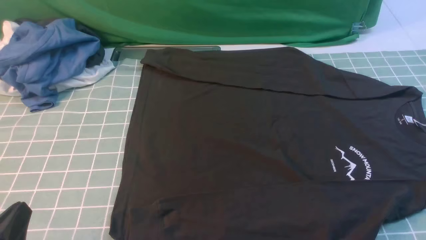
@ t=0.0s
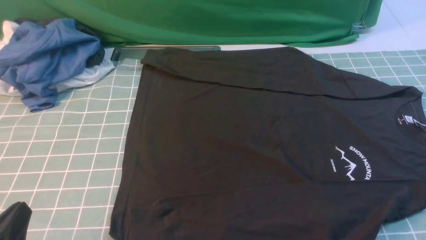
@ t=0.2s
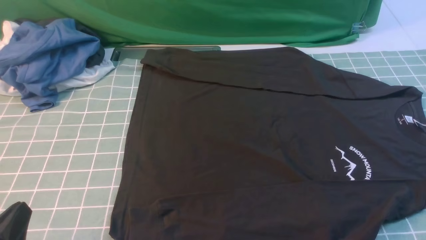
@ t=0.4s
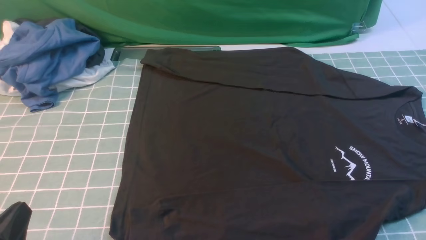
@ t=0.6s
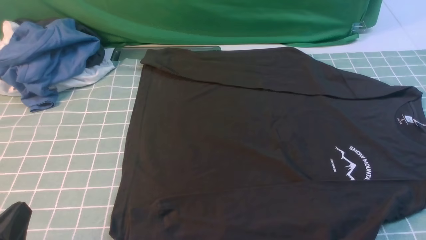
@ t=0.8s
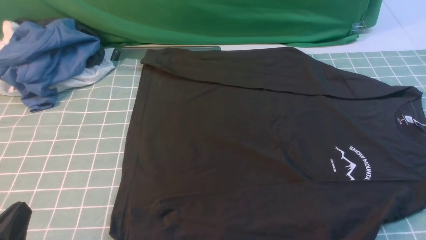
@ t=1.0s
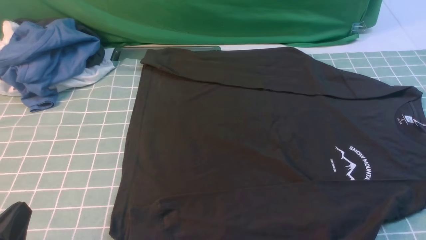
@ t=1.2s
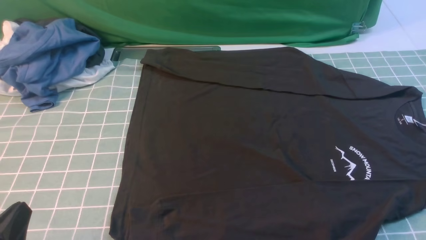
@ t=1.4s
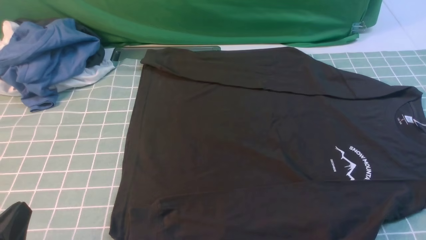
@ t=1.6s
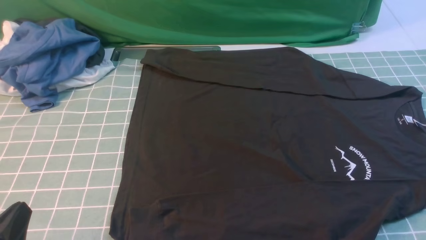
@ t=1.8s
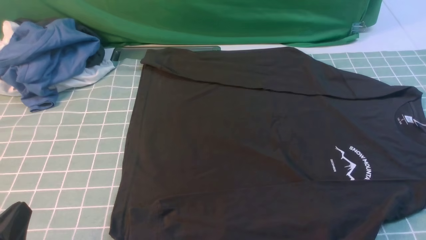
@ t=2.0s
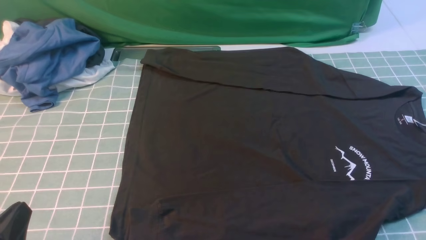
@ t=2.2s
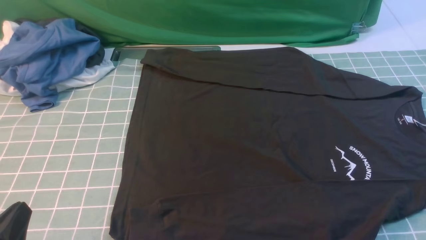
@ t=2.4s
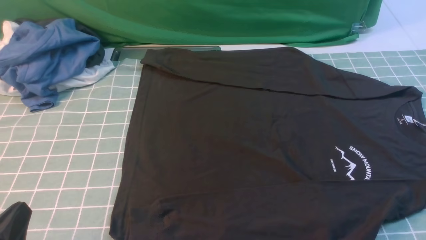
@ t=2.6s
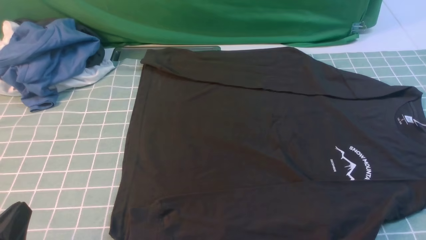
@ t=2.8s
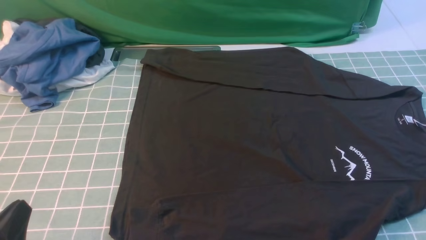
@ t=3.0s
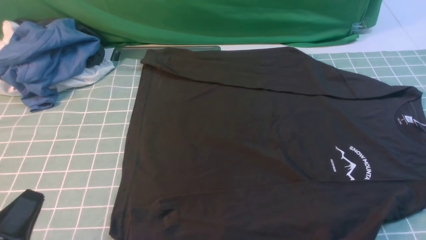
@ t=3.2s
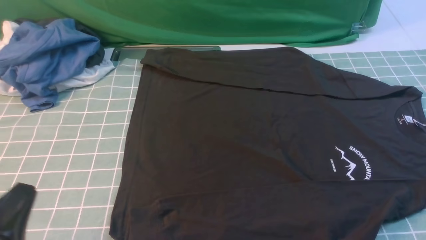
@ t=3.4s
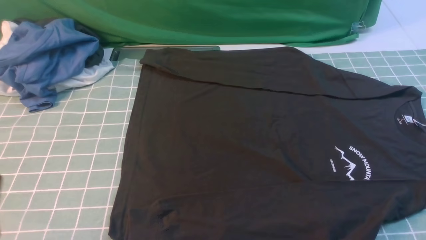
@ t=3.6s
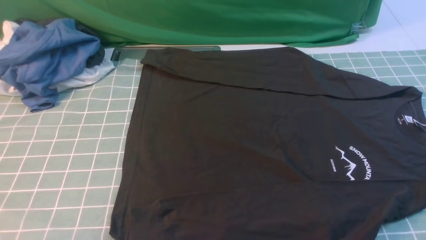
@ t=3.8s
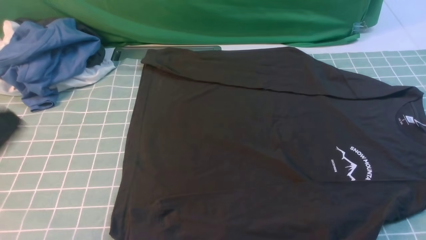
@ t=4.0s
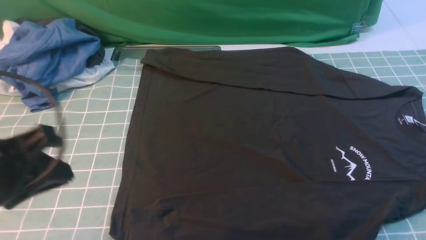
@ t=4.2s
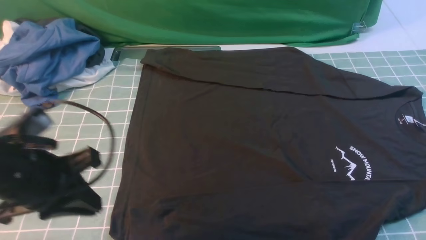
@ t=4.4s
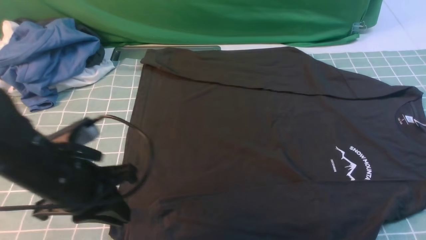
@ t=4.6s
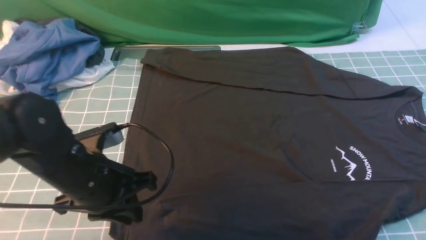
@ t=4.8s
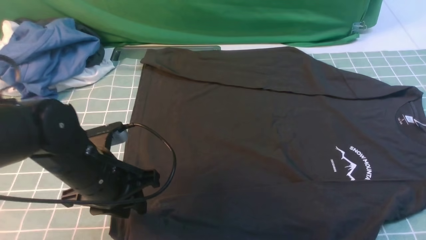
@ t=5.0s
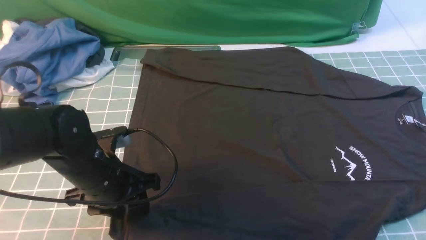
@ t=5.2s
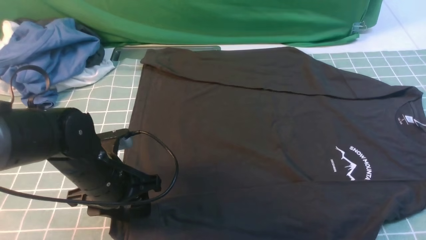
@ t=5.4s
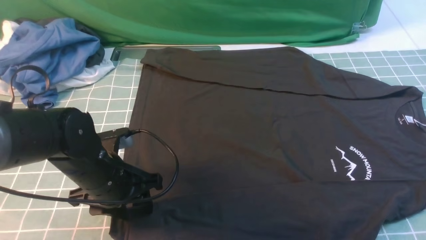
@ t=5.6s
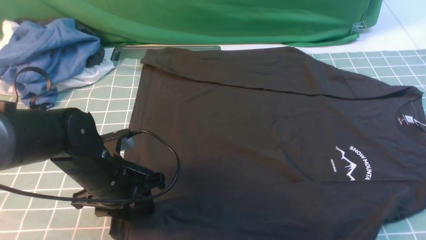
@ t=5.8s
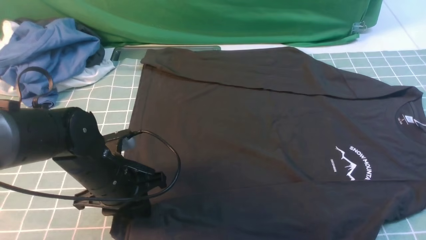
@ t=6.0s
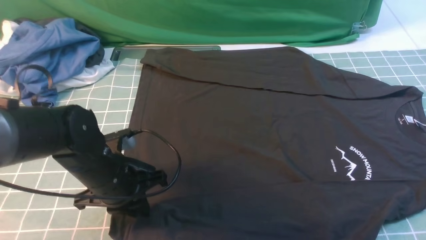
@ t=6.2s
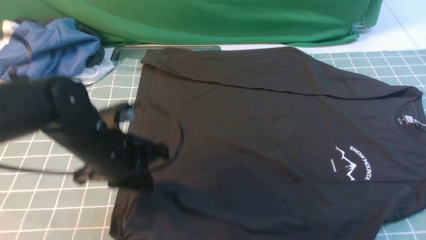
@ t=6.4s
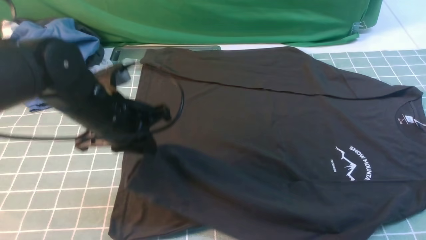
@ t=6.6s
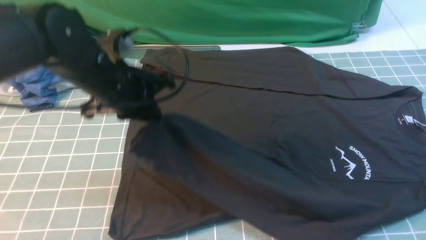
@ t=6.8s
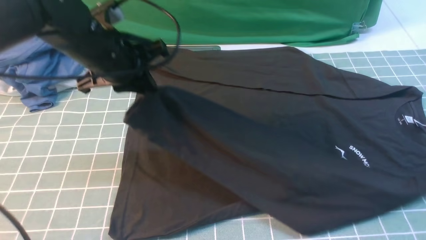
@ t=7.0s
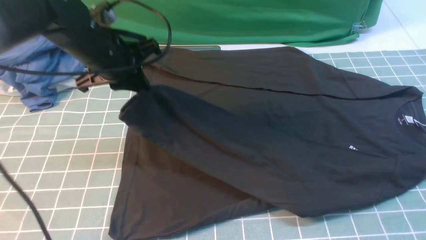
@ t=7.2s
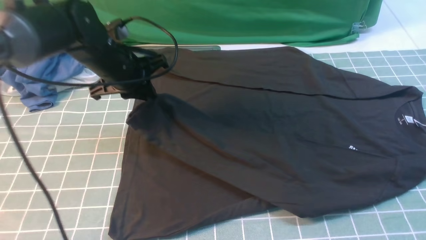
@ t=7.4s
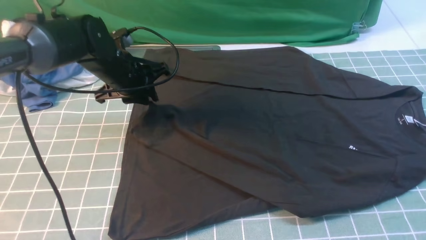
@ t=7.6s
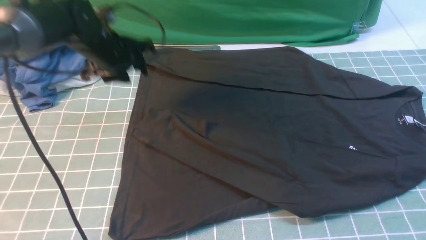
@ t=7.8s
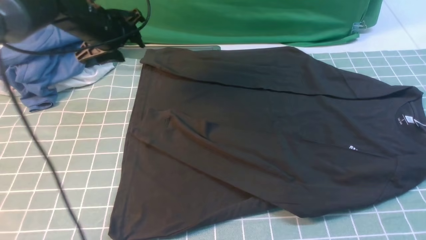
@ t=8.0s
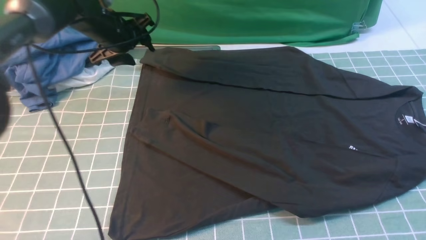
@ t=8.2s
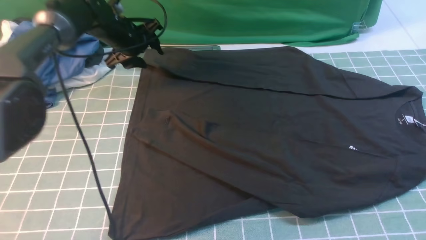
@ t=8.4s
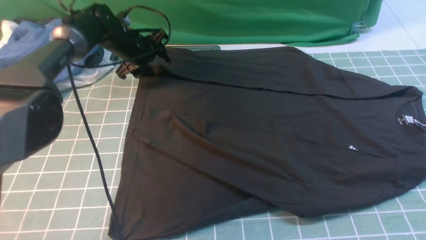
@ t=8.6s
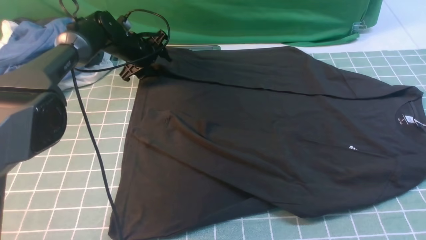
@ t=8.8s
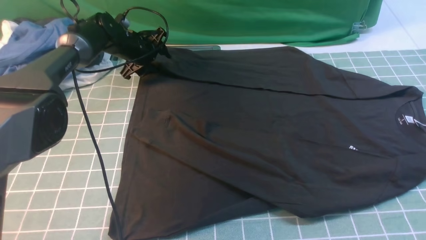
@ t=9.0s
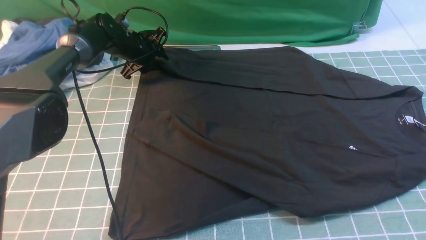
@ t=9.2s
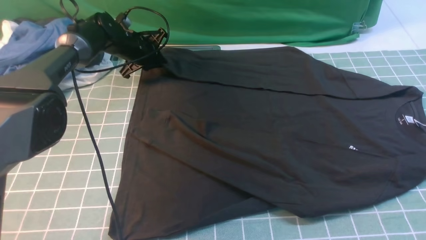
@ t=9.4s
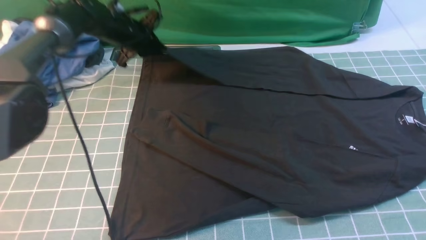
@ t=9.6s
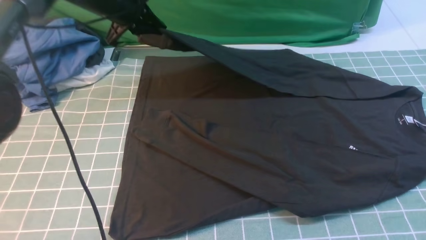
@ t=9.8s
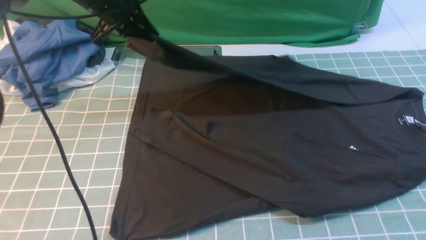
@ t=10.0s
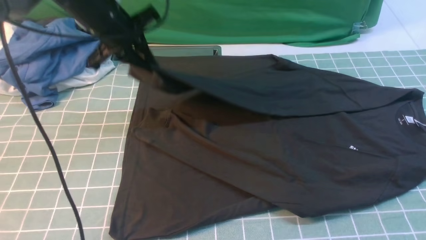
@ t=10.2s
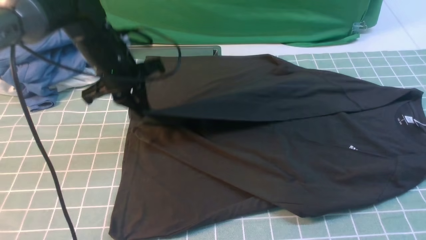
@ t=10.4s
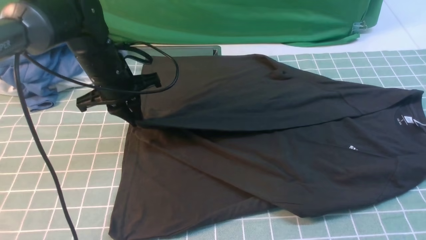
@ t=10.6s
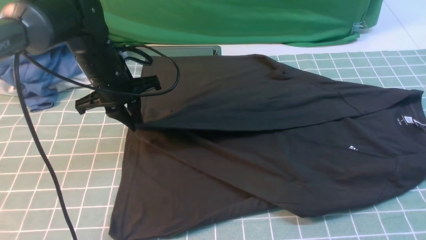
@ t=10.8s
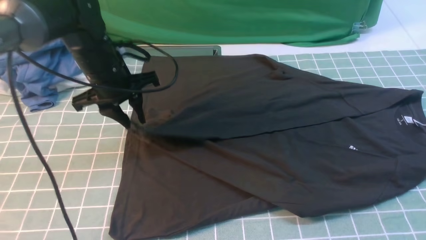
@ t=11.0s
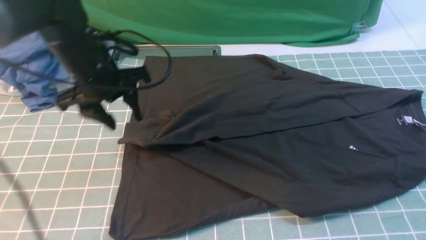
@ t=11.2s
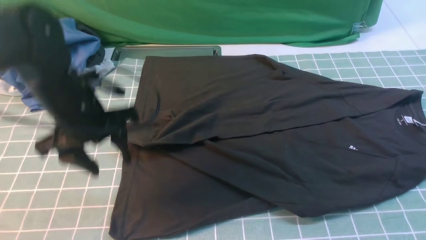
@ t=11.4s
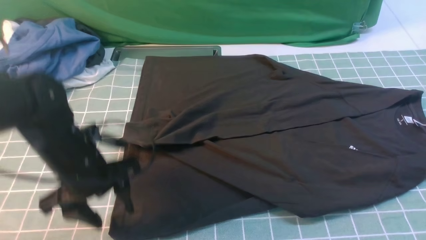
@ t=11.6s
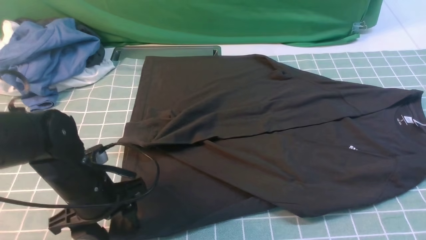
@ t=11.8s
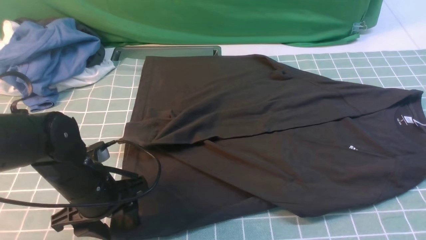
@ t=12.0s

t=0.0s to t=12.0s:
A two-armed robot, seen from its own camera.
Step, t=0.0s to t=6.2s: use the left arm to clamp the cuff closest to it.
Step, t=6.4s to t=7.6s: use the left arm to drag and place the cuff at the centered position on the left edge of the fabric.
Step, t=8.0s to t=9.4s: use the left arm to clamp the cuff farthest from it.
Step, t=9.8s to t=11.2s: use the left arm to drag and drop the cuff onto the cuff closest to the left arm.
t=0.0s to t=1.6s: Both grippers stay put.
t=3.0s to t=4.4s: The left gripper heads forward and upward, covering roughly 15 cm.
t=4.4s to t=6.0s: The left gripper is displaced downward, forward and to the right by some 15 cm, and opens and closes again.
t=6.0s to t=7.6s: The left gripper goes some 15 cm forward.
t=7.6s to t=9.0s: The left gripper is displaced forward and downward by approximately 15 cm, and opens.
t=9.0s to t=10.4s: The left gripper heads backward and upward, covering roughly 15 cm, and closes up.
t=10.4s to t=12.0s: The left gripper goes some 20 cm backward and downward, and opens up.

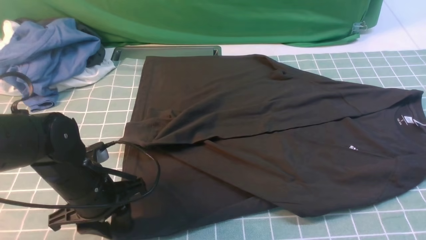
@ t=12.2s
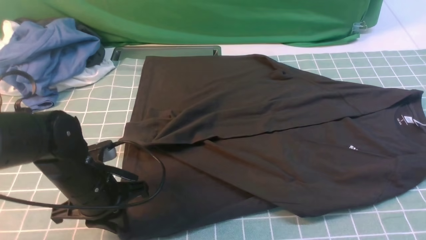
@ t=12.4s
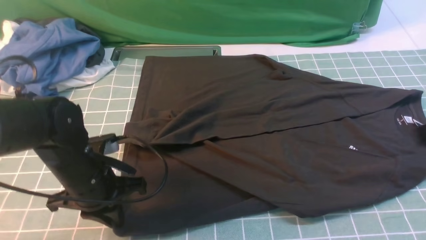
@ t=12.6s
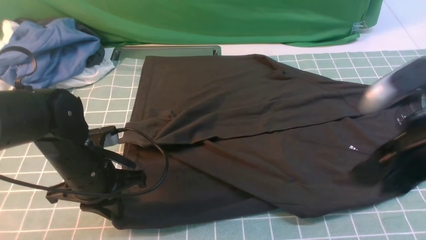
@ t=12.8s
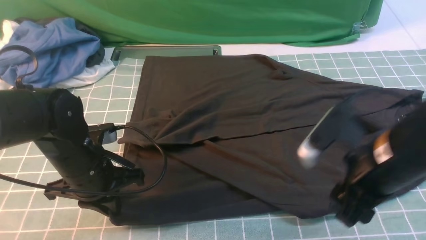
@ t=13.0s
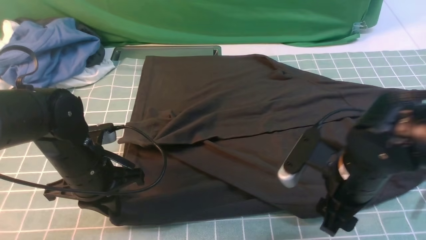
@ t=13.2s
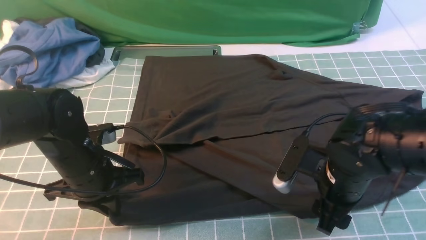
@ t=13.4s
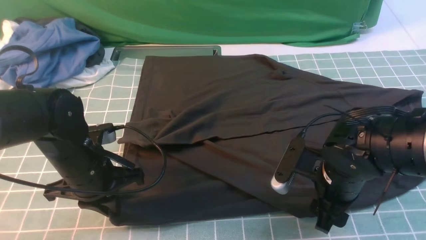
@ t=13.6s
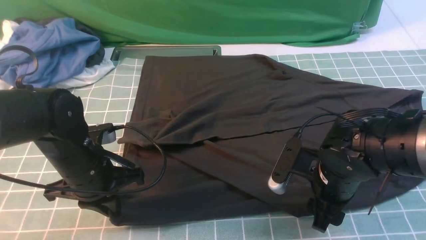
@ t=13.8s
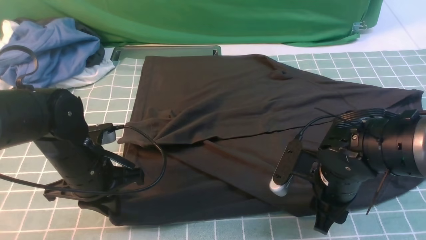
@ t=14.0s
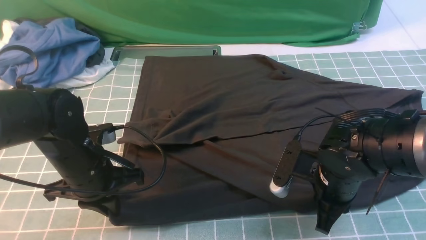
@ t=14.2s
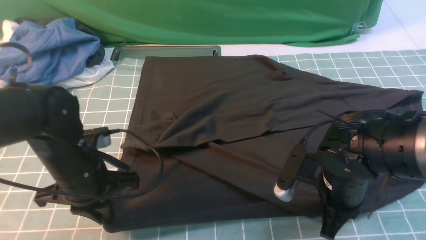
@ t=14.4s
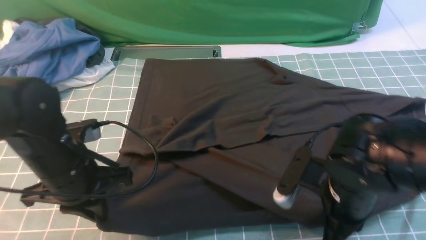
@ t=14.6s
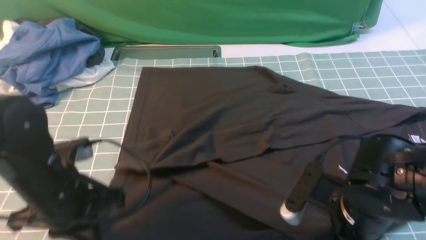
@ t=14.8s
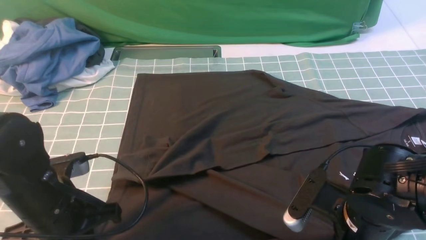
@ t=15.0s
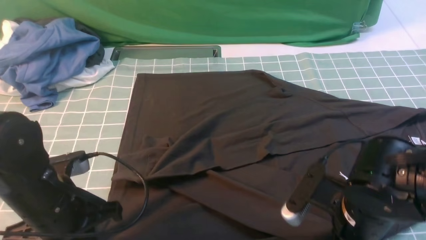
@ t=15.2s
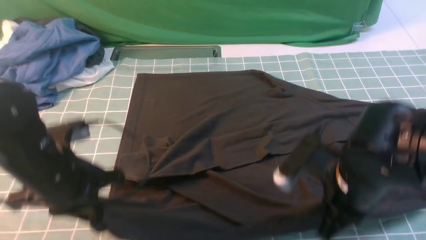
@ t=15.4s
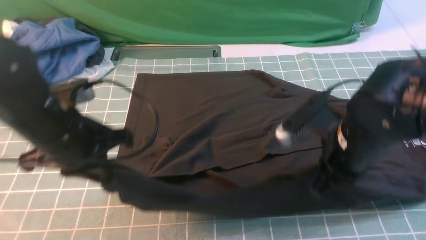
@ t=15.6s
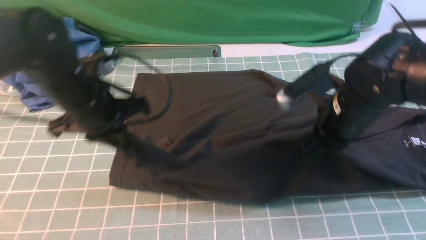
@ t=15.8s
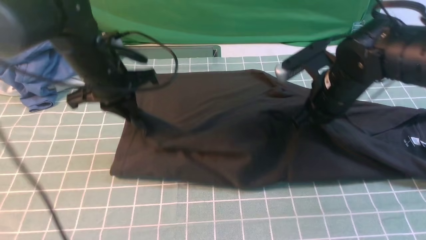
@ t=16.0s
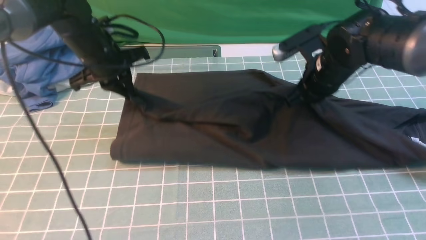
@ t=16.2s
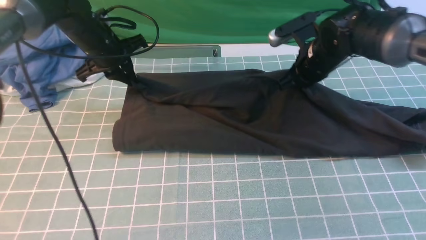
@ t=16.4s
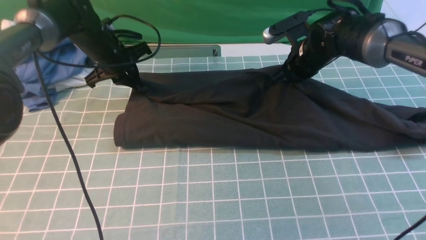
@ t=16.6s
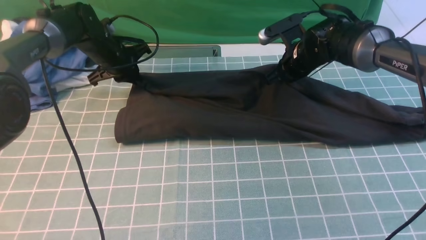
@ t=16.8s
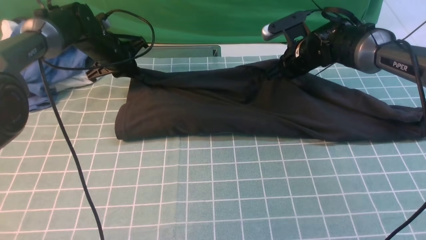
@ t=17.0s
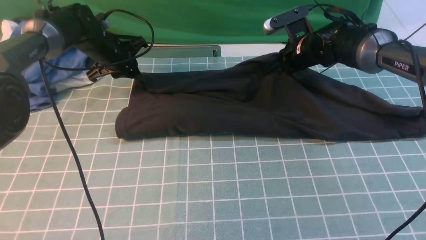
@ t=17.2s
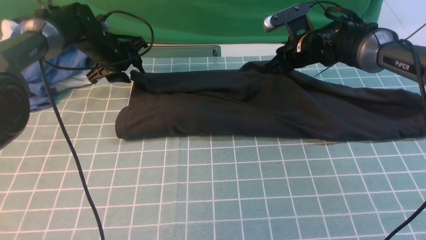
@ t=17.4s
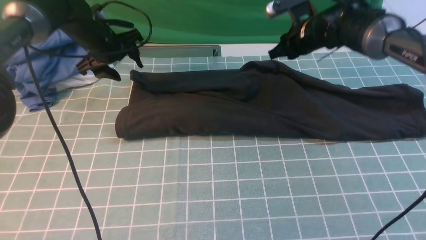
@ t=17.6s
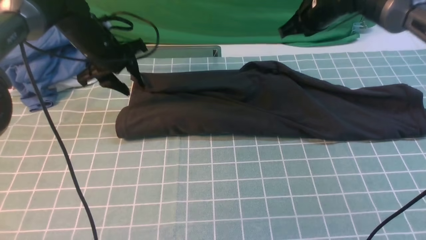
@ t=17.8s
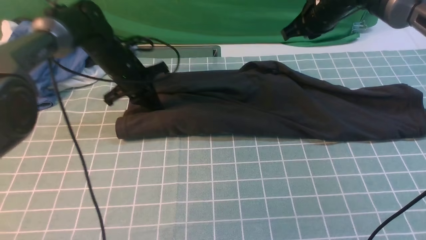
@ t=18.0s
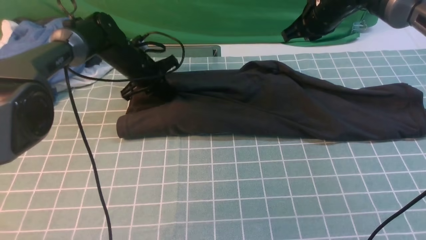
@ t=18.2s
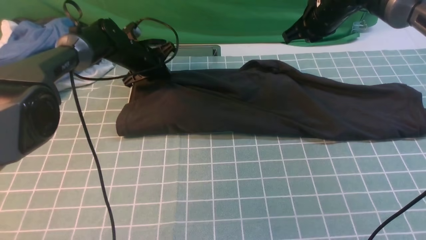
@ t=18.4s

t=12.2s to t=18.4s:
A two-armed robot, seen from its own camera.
Step, t=12.2s to t=15.2s: use both arms simultaneously to clamp the lower edge of the clothing fabric.
t=12.2s to t=13.8s: The right gripper heads downward, to the left and forward, covering some 25 cm, and opens. Meanwhile the left gripper closes its fingers.
t=13.8s to t=15.4s: Both grippers travel together upward, some 5 cm. The right gripper closes its fingers.
t=15.4s to t=16.8s: The two grippers go about 30 cm forward.
t=16.8s to t=18.4s: The right gripper is displaced upward by approximately 10 cm, while the left gripper changes place by roughly 5 cm, and opens, then closes again.
